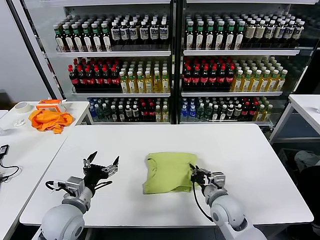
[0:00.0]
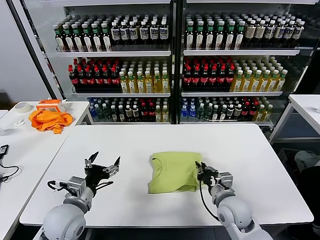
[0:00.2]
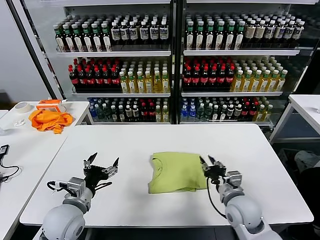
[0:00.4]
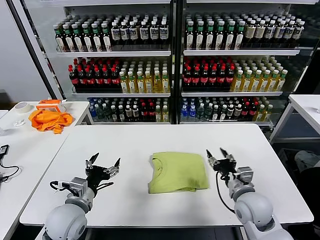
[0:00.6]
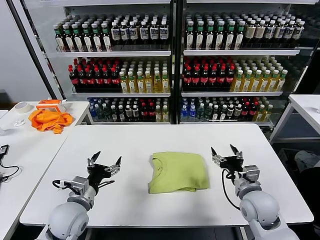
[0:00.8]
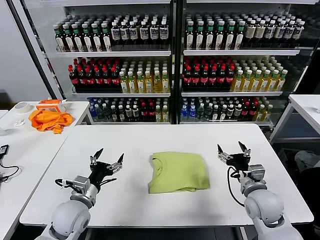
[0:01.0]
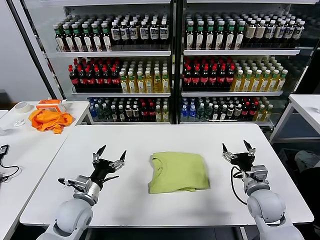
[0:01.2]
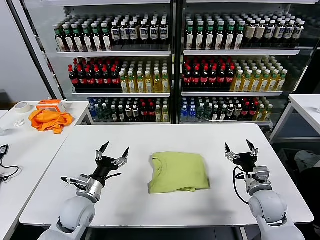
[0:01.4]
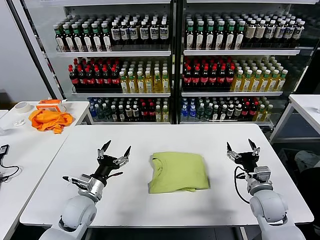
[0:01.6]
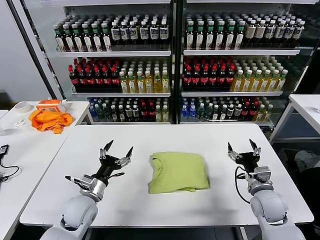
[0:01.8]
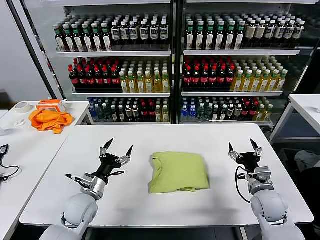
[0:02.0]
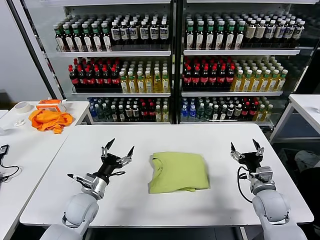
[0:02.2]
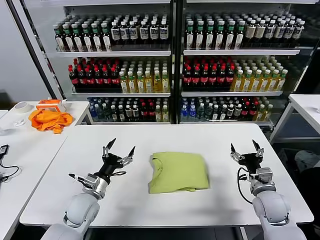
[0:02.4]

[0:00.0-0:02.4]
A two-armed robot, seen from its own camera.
Task of the whole recording: fold and organize the clothes.
0:00.0 to 0:01.2: The left gripper travels downward by approximately 5 cm. The right gripper moves to the right, some 10 cm, and opens.
0:01.2 to 0:02.4: There are only small adjustments of the grippers.
